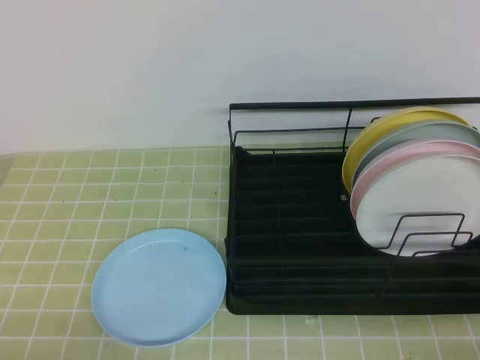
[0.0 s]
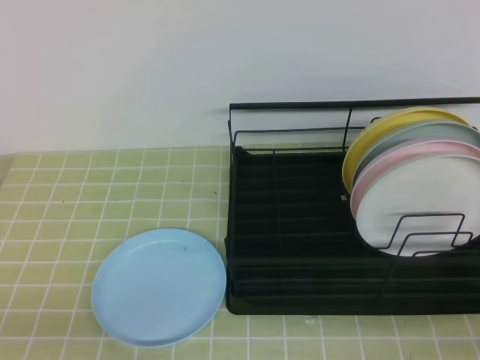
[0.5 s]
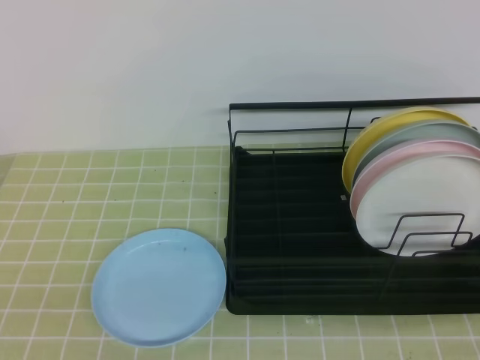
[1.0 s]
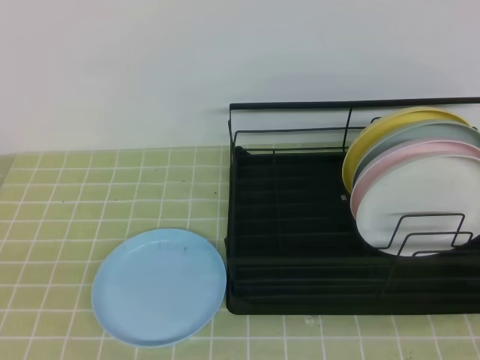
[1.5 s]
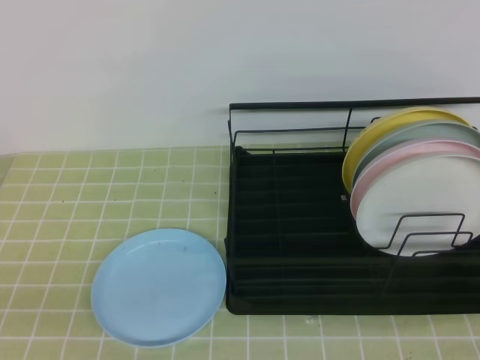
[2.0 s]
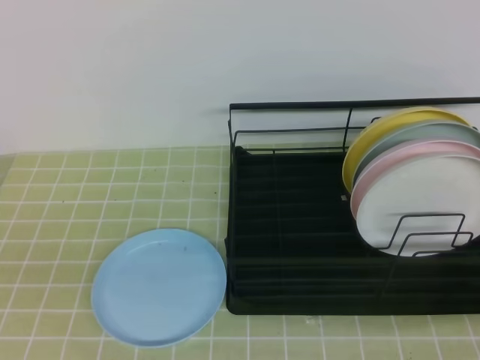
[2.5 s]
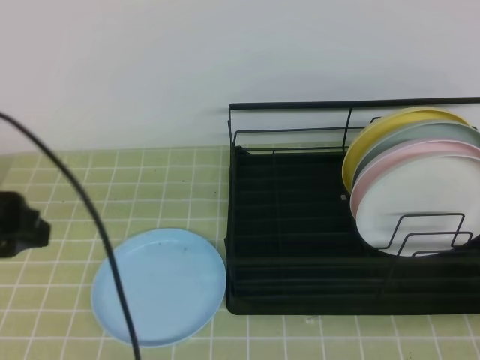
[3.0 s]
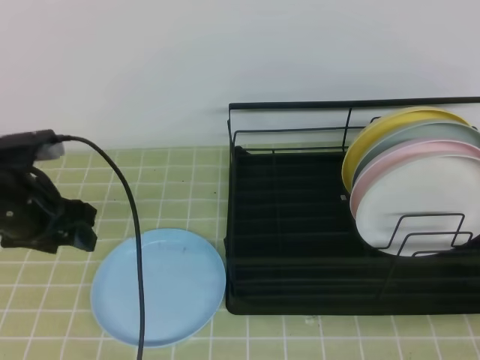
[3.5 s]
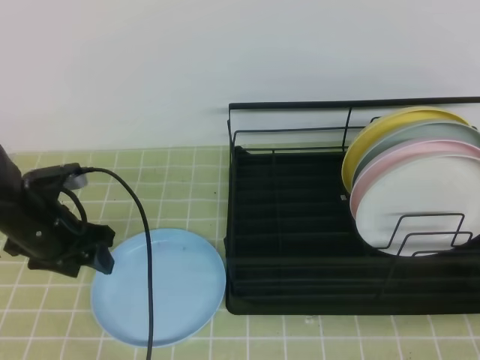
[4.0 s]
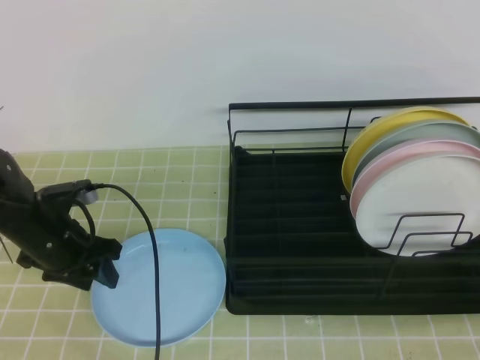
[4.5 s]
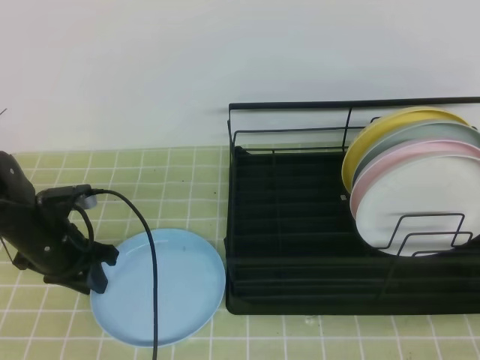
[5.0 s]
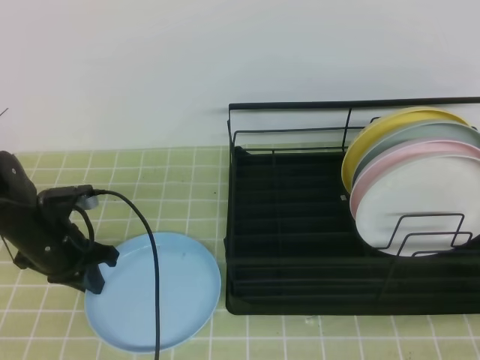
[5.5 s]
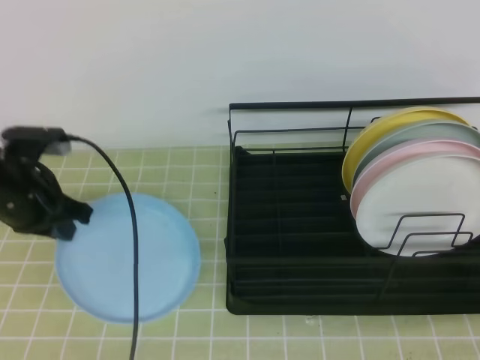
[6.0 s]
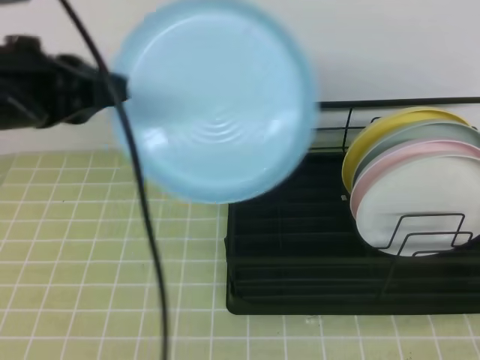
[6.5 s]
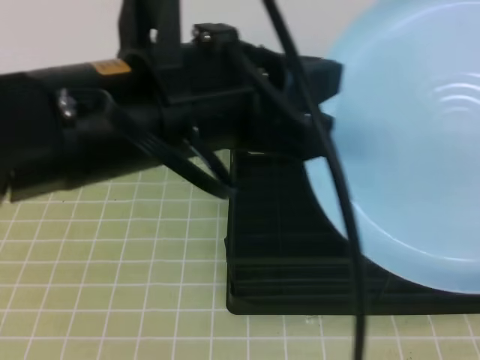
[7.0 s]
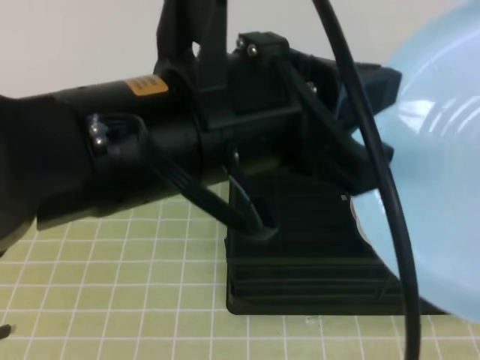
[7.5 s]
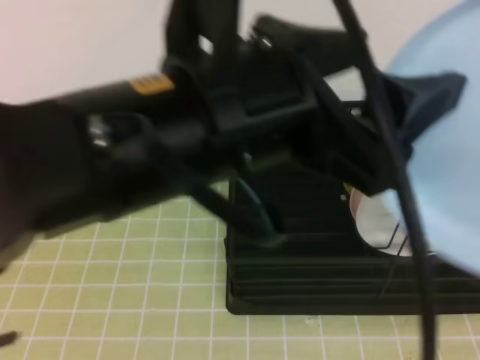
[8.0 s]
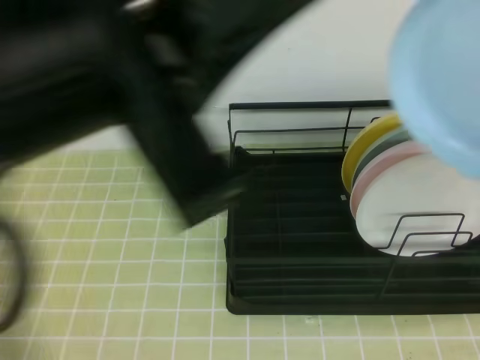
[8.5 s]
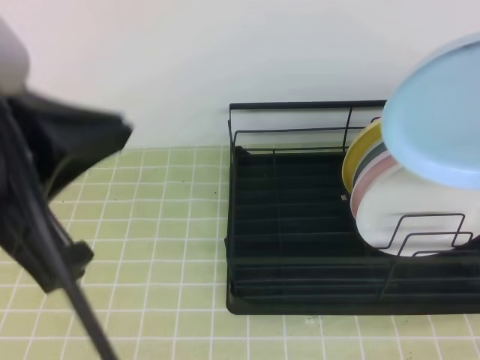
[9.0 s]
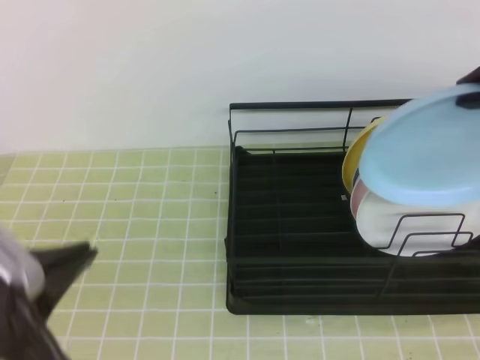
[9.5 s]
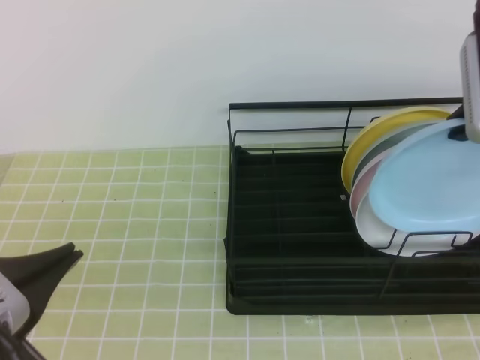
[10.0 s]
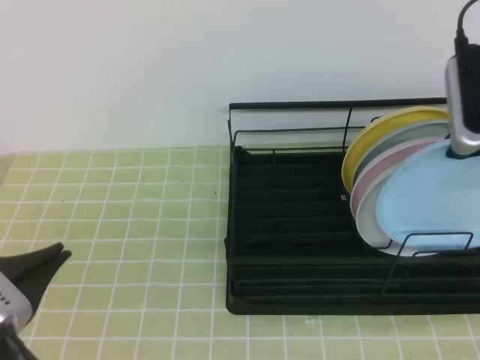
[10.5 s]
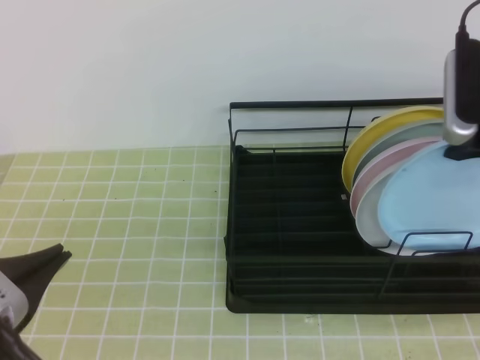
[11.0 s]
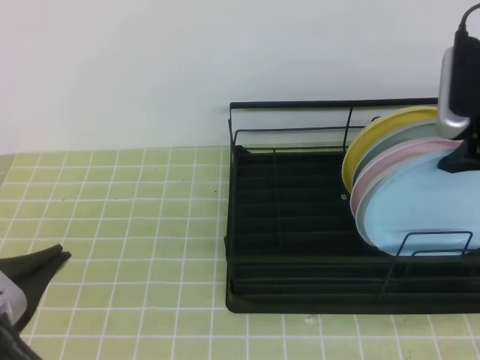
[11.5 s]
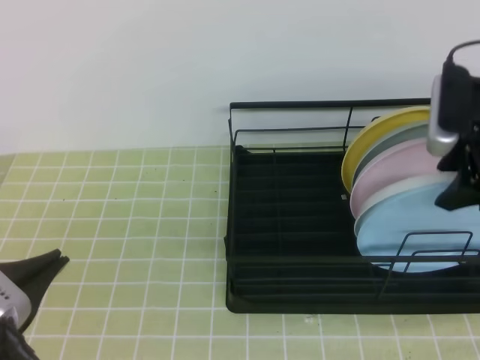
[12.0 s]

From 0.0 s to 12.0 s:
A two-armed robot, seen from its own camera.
From 2.0 s to 4.0 s: The left gripper moves forward, some 30 cm, and opens up.
From 4.0 s to 6.0 s: The left gripper travels upward by about 5 cm, and closes up.
From 6.0 s to 8.0 s: The right gripper moves upward, about 15 cm, and opens, then closes once more; the left gripper moves upward, to the right and backward, roughly 35 cm, and opens its fingers.
From 8.0 s to 10.0 s: The left gripper goes roughly 20 cm to the left and downward, and closes its fingers. The right gripper shifts some 25 cm forward.
From 10.0 s to 12.0 s: The right gripper heads downward, covering about 5 cm, and opens.

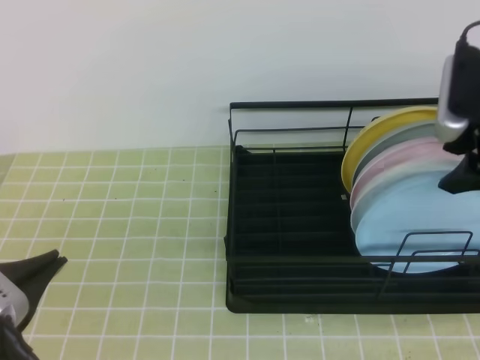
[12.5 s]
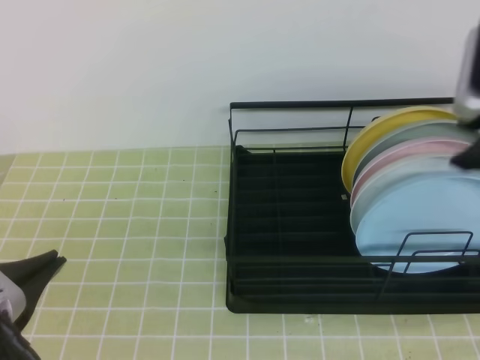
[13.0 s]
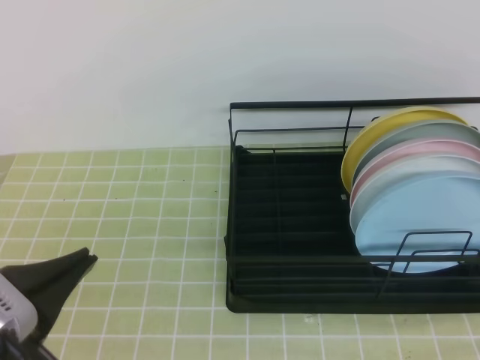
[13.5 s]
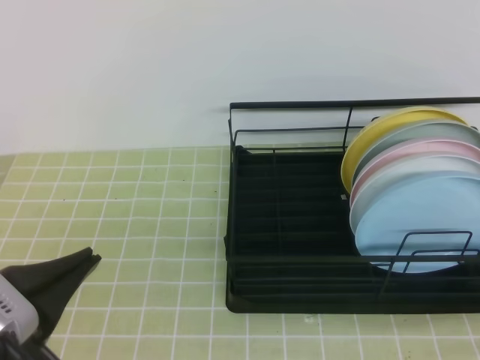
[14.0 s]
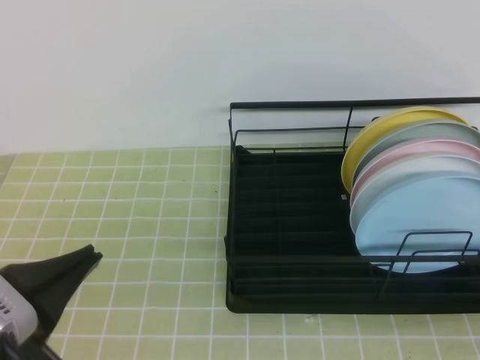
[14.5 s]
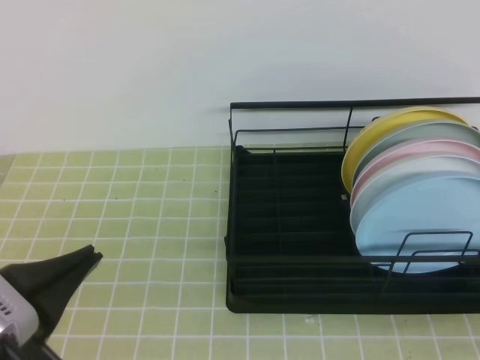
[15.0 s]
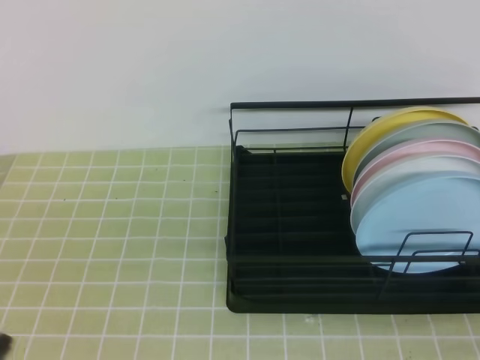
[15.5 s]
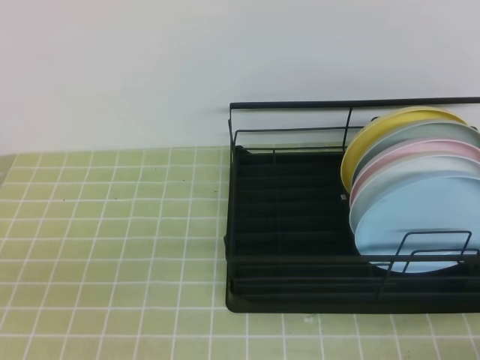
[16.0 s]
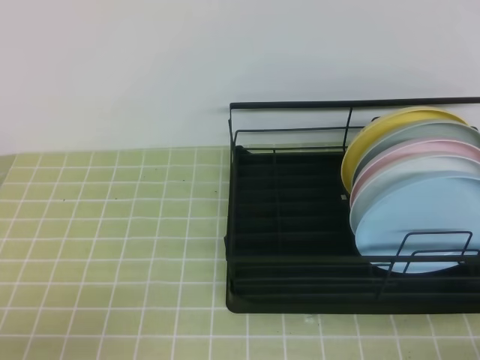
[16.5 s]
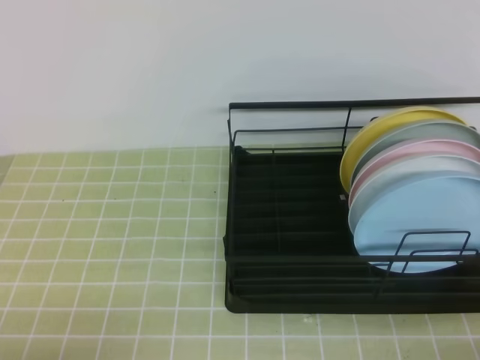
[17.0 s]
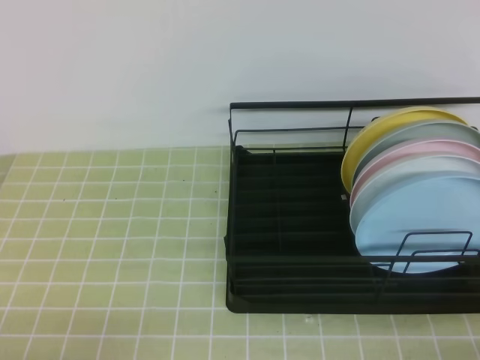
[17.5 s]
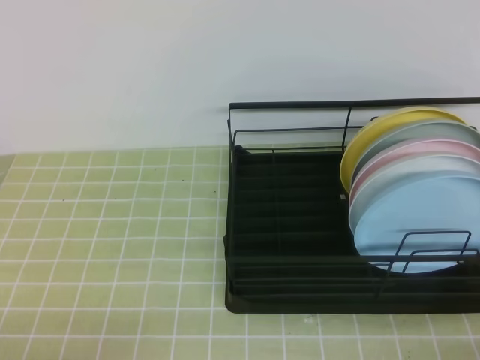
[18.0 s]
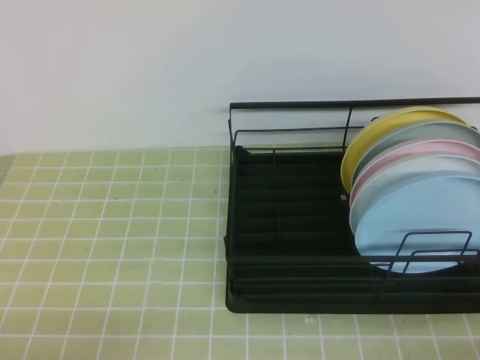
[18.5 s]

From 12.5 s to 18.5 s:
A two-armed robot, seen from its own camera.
From 12.5 s to 14.5 s: The right gripper travels backward by some 25 cm, and closes its fingers.
From 14.5 s to 16.5 s: The left gripper shifts approximately 15 cm downward and to the left.
